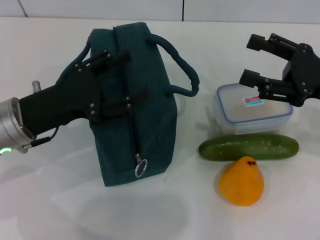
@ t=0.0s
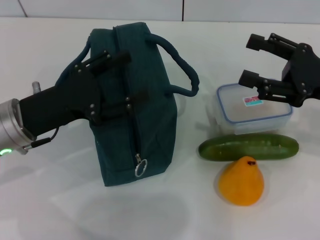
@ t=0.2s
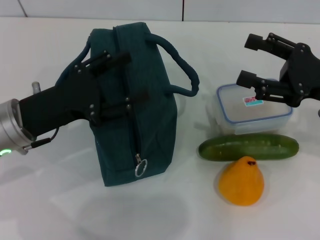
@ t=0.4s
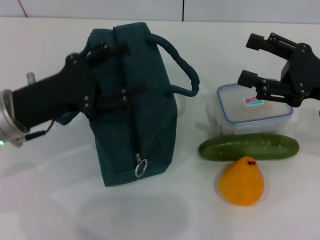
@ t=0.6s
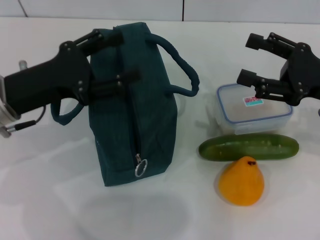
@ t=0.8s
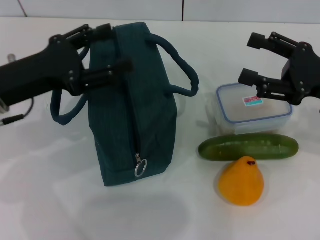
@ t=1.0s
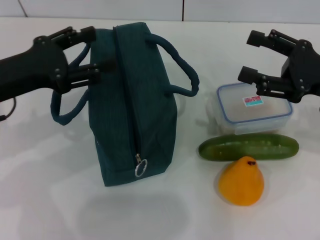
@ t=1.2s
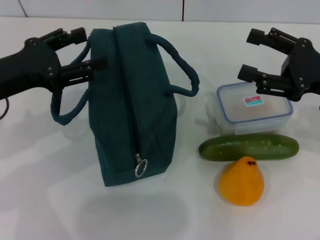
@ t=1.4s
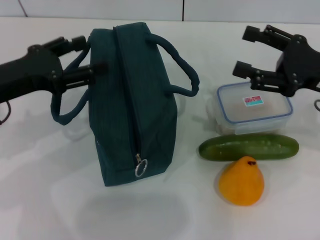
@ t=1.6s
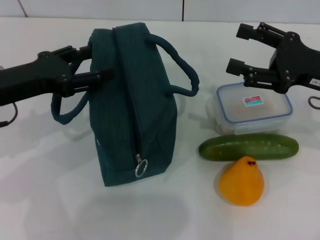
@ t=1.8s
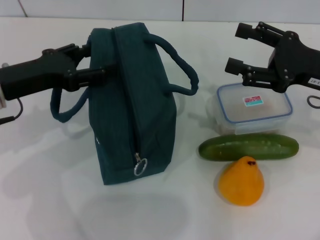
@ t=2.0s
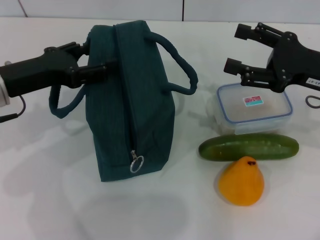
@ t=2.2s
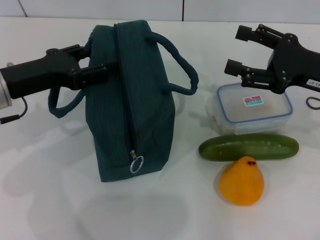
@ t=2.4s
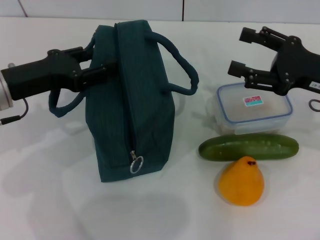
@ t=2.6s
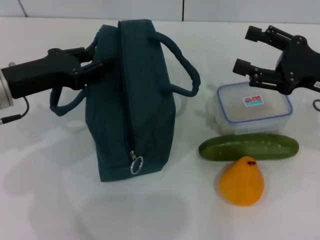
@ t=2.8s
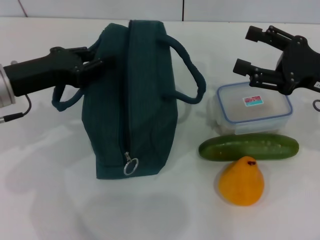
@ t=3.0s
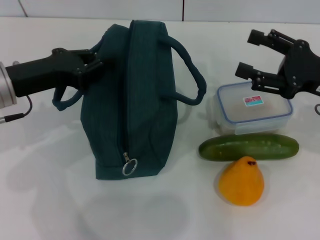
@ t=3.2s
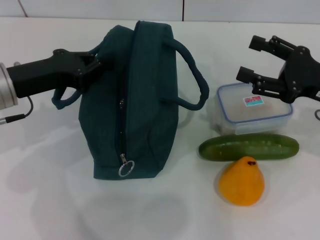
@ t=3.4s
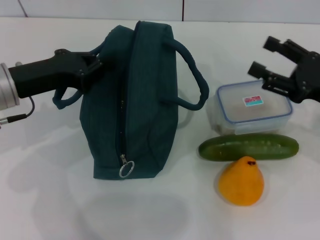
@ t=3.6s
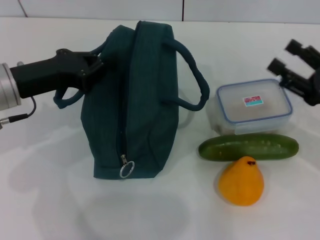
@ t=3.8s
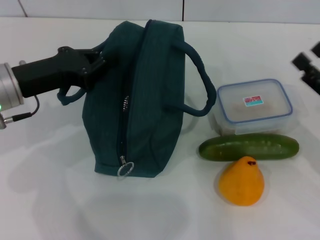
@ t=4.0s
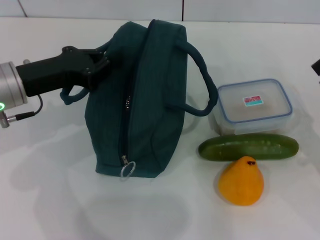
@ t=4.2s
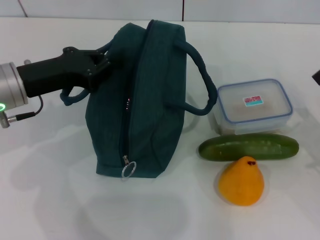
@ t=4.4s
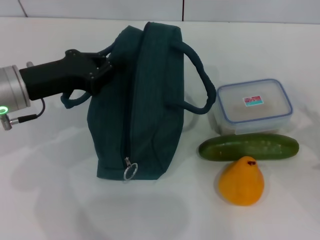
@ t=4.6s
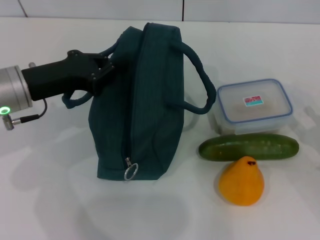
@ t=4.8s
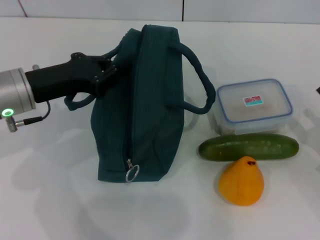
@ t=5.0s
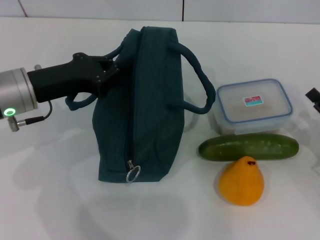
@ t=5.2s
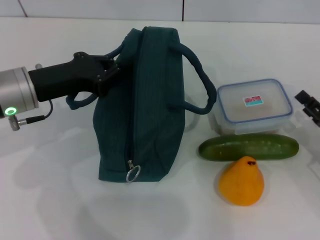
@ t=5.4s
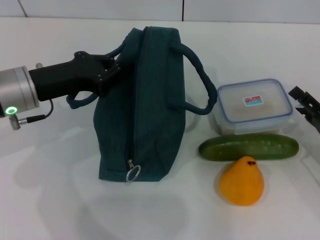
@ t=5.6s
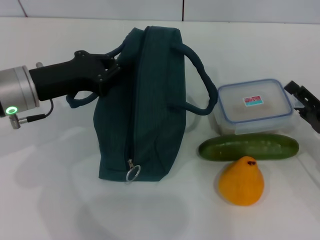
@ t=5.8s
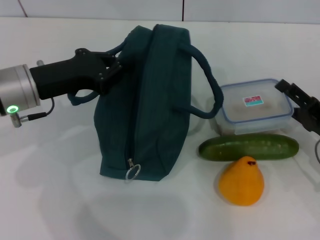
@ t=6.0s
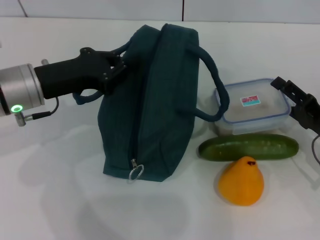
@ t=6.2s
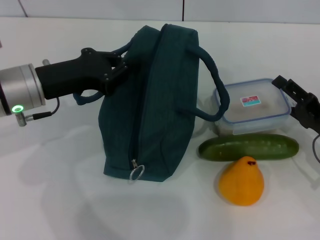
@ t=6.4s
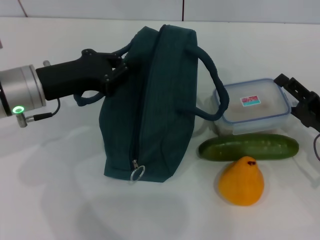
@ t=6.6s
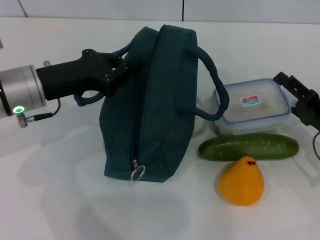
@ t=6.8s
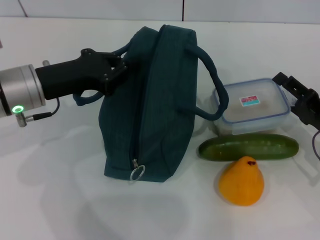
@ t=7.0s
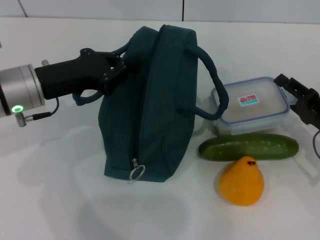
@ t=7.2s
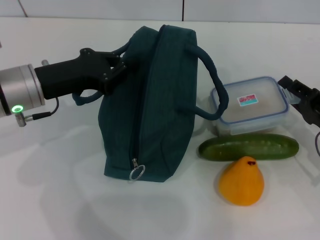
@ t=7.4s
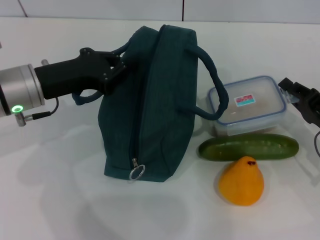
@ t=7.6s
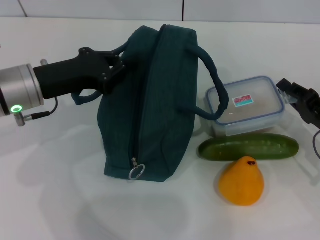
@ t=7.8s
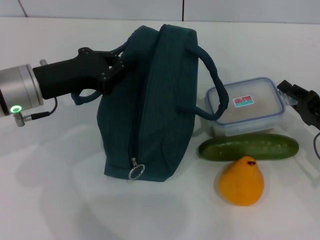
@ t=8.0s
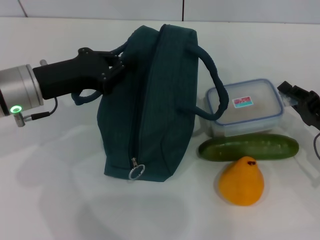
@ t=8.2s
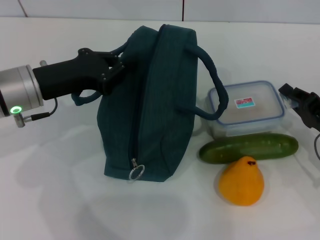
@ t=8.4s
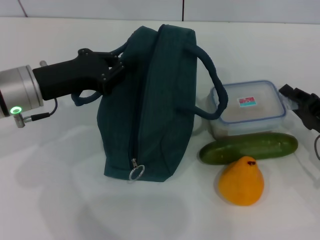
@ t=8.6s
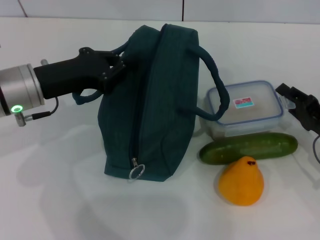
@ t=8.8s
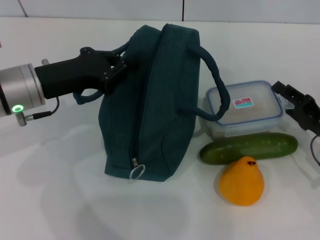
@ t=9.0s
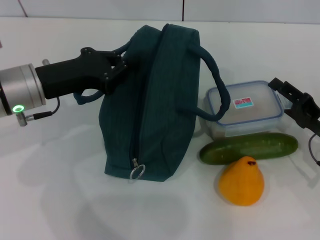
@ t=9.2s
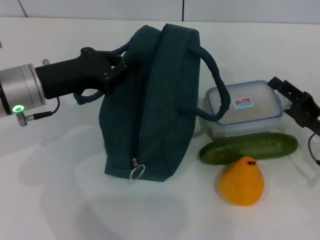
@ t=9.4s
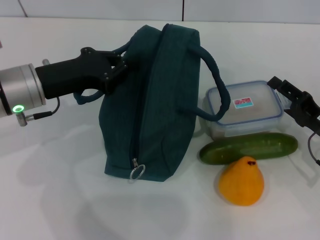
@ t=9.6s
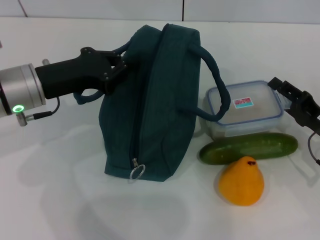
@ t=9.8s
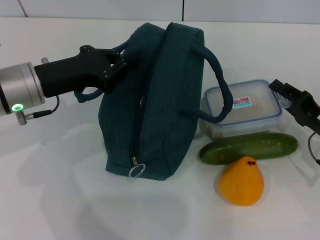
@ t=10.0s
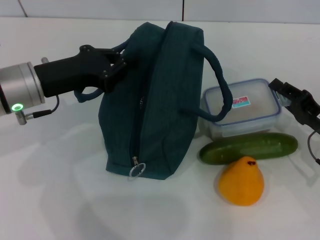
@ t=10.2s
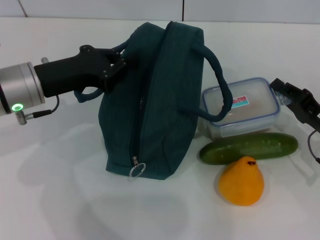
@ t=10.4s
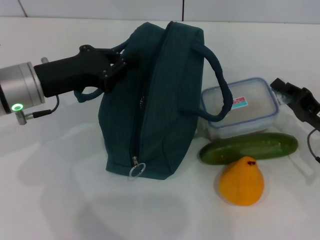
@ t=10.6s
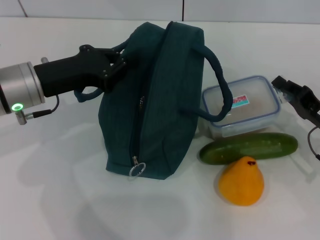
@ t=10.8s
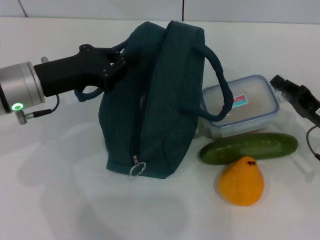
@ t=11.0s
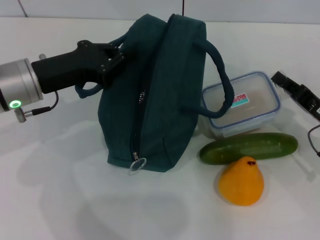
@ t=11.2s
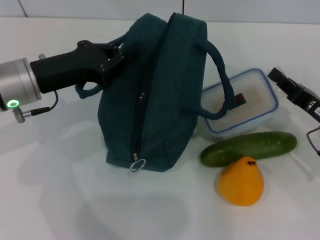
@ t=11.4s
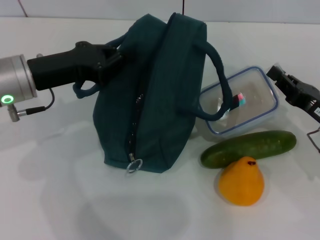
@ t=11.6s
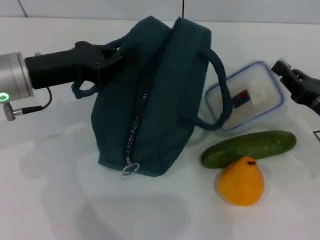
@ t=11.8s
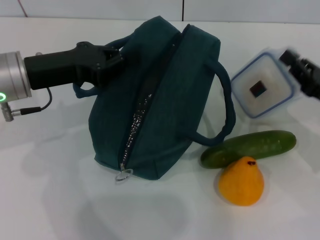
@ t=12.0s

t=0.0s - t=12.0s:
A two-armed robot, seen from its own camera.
Step, t=0.0s - t=3.0s: Hold the lunch bag with your left hand.
Step, t=3.2s - t=11.0s: Pick up the lunch box with your right hand.
t=0.0s - t=1.6s: The left gripper ends up about 5 cm from where it was.
t=1.6s - t=3.0s: The left gripper closes its fingers.
t=3.0s - t=4.4s: The right gripper goes approximately 10 cm backward and downward.
t=4.4s - t=6.0s: The right gripper moves some 5 cm.
t=6.0s - t=7.6s: The right gripper closes up.
t=7.6s - t=10.4s: Both grippers stay put.

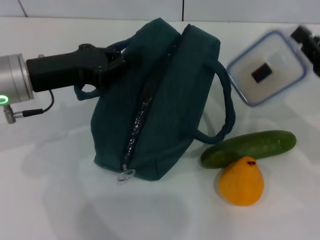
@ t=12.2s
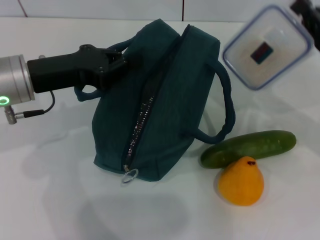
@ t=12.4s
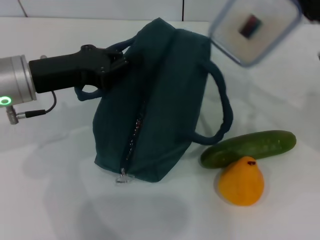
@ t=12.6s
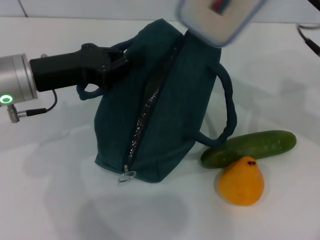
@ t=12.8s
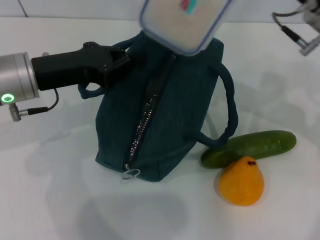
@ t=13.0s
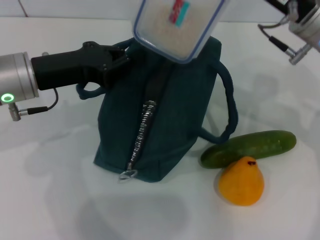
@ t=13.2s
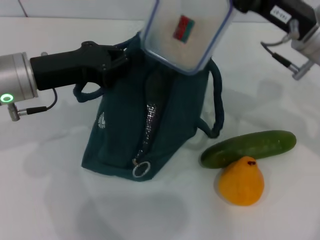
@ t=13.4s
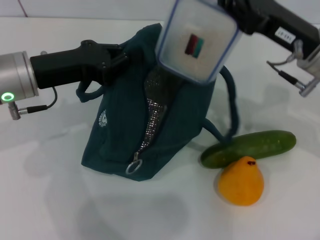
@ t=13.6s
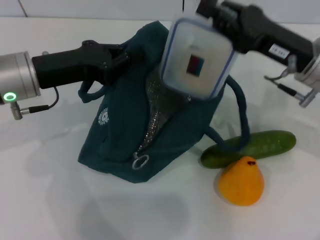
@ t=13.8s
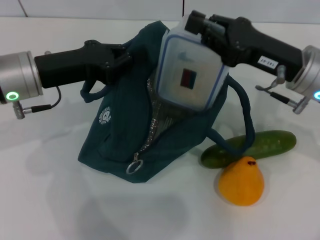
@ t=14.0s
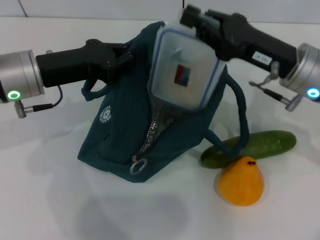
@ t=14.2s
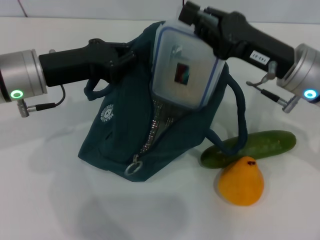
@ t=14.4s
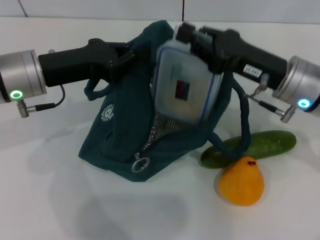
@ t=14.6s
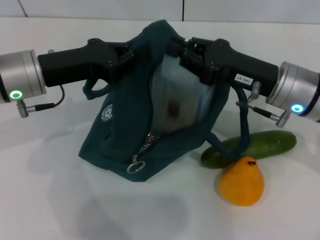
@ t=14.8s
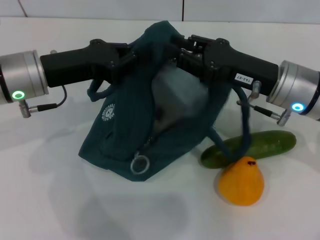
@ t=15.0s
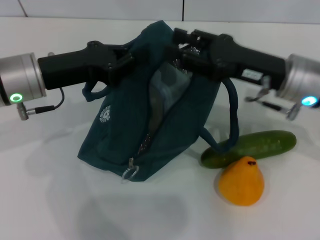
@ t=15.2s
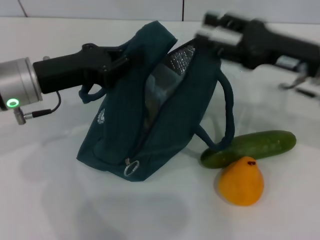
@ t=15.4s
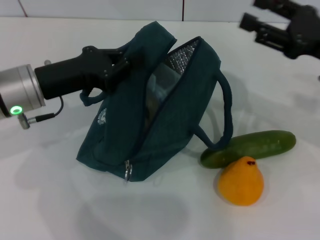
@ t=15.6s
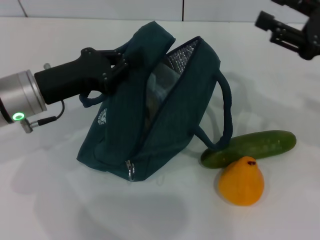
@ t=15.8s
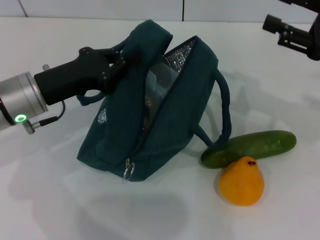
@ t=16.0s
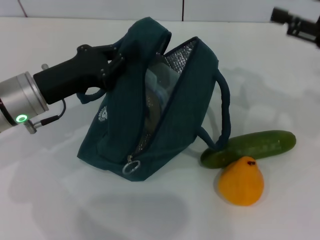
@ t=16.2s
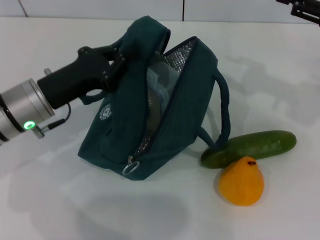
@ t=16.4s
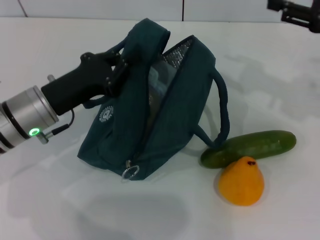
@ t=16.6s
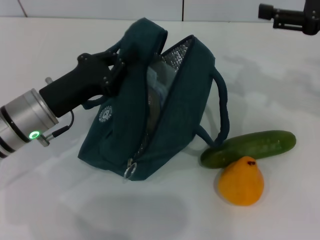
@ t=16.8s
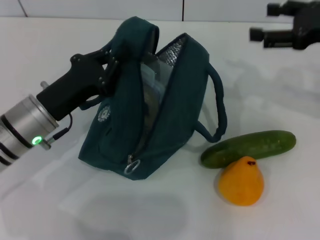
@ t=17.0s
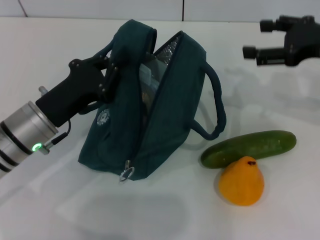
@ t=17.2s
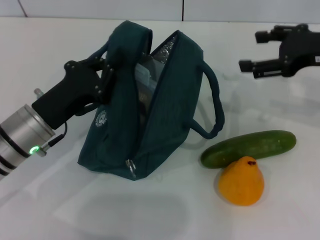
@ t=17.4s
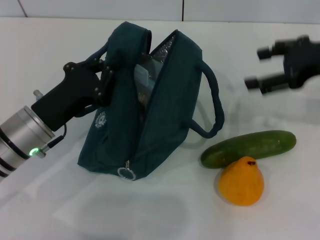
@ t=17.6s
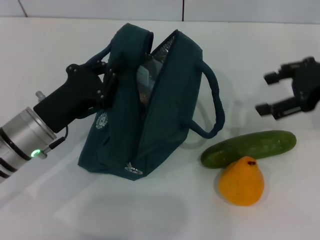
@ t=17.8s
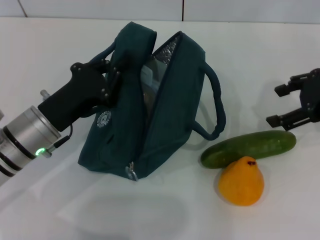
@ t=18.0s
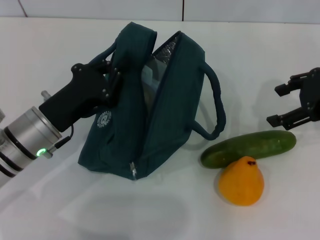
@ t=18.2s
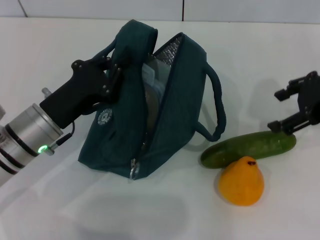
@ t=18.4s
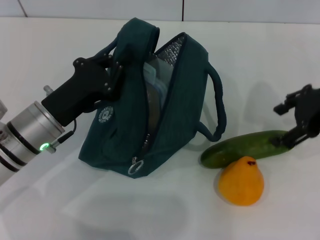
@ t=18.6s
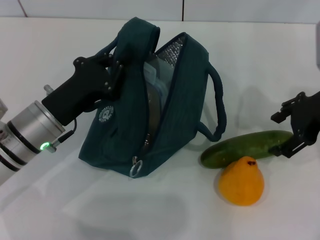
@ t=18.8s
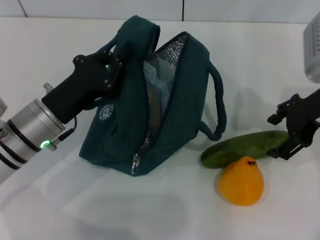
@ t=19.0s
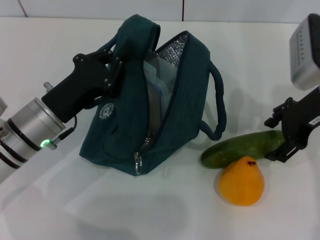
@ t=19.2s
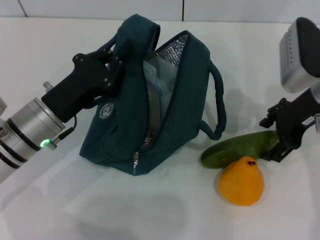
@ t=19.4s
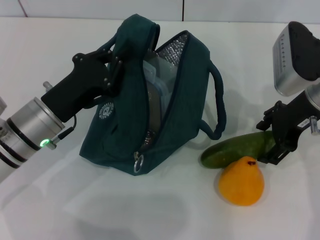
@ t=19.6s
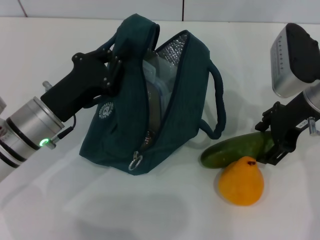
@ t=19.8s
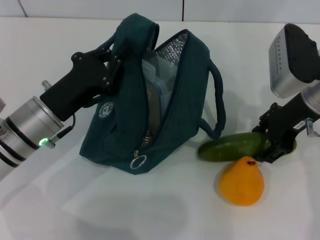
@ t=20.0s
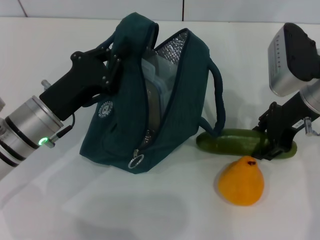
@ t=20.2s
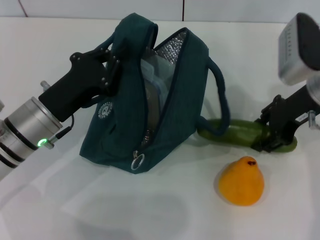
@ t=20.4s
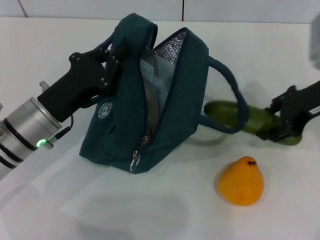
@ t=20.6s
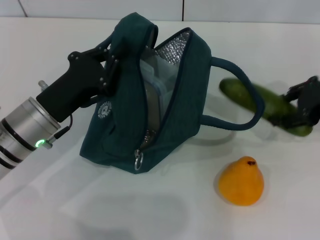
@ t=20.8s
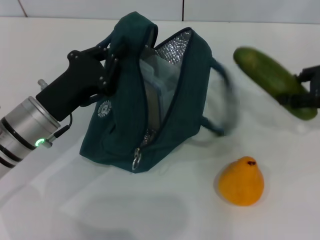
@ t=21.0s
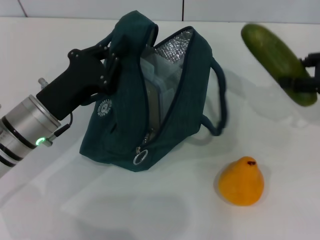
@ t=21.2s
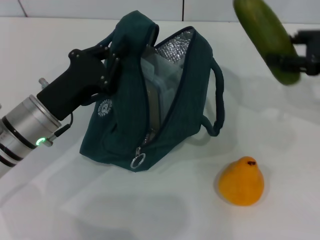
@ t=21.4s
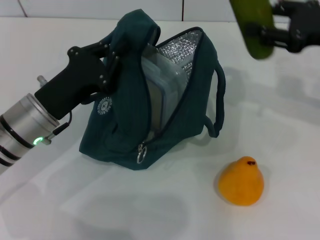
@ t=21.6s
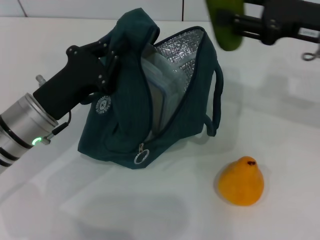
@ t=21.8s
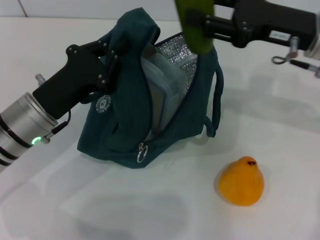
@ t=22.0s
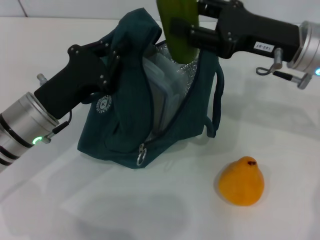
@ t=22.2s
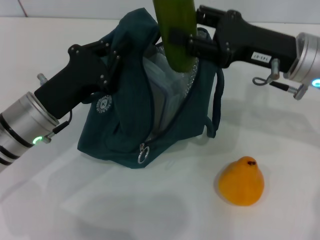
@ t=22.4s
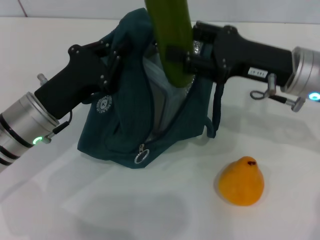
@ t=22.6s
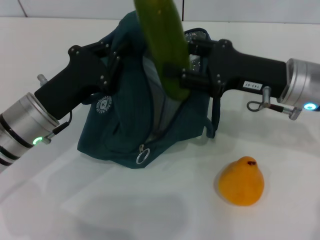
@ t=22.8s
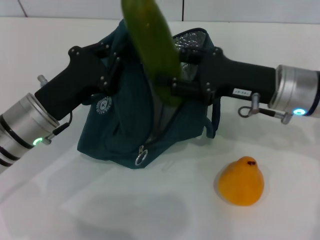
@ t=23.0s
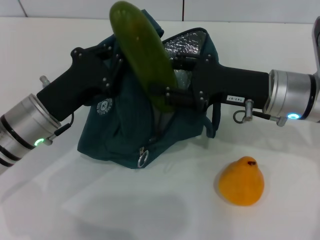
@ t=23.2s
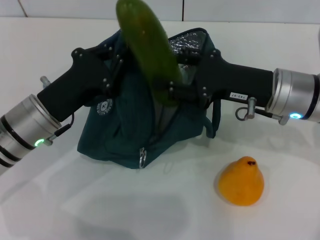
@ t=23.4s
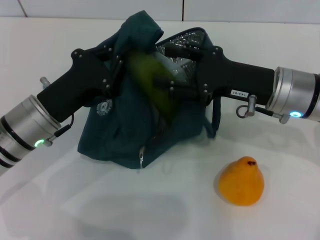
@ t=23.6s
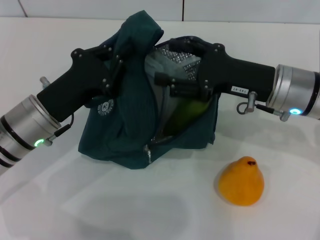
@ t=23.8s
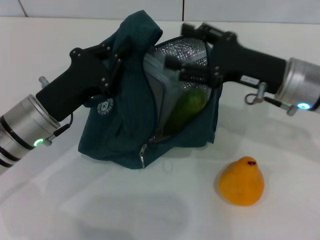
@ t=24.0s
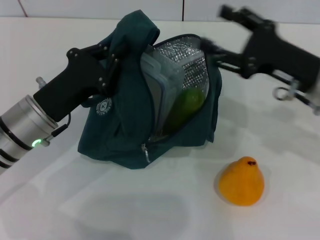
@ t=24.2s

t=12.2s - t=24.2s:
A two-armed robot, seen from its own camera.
Step, t=12.2s - t=15.2s: Place the lunch box into the lunch bag with your right hand.
Step, t=15.4s - t=20.0s: Pick up the cucumber with your right hand.
Step, t=20.2s - t=23.8s: Put the cucumber into the lunch bag with your right hand.
t=12.2s - t=13.8s: The right gripper is displaced to the left and upward by approximately 10 cm.
t=15.2s - t=16.6s: The right gripper travels to the right and upward by about 15 cm. The left gripper is displaced downward by roughly 5 cm.
t=16.6s - t=18.2s: The right gripper opens its fingers.
t=18.2s - t=19.8s: The right gripper travels to the left by some 10 cm.
t=19.8s - t=21.2s: The right gripper shifts roughly 10 cm to the right.
t=21.2s - t=22.6s: The right gripper heads to the left, covering about 15 cm.
